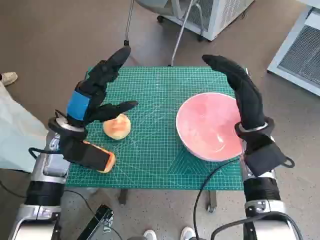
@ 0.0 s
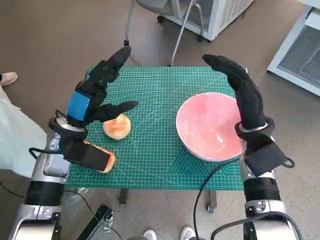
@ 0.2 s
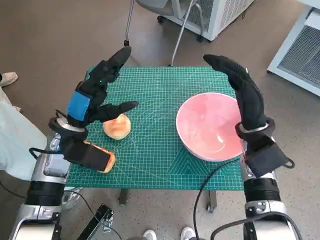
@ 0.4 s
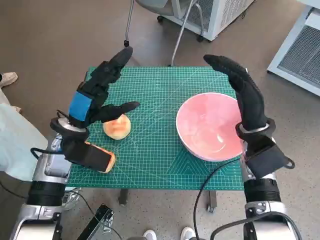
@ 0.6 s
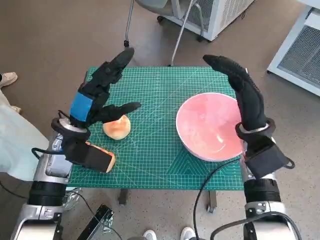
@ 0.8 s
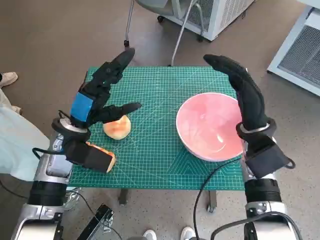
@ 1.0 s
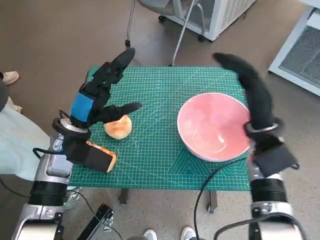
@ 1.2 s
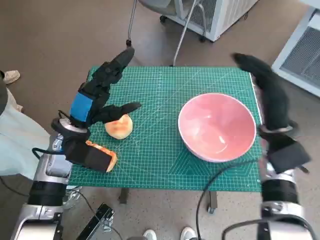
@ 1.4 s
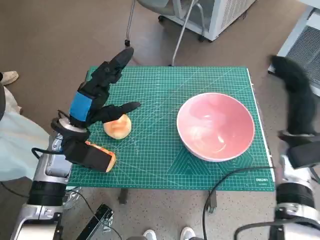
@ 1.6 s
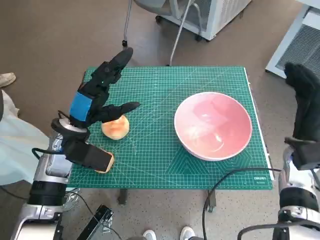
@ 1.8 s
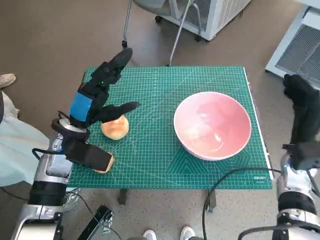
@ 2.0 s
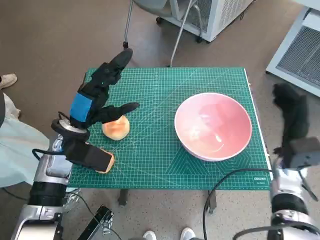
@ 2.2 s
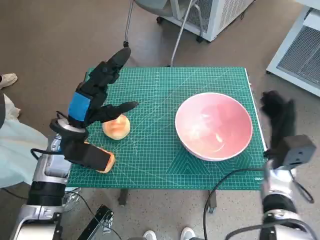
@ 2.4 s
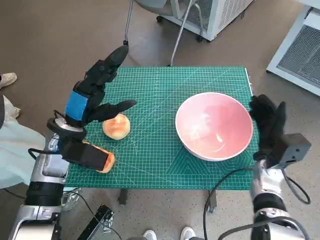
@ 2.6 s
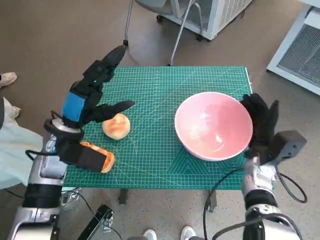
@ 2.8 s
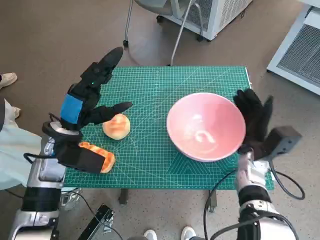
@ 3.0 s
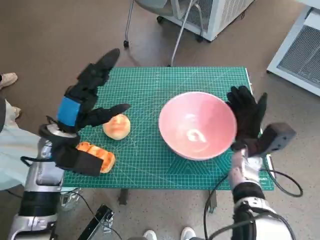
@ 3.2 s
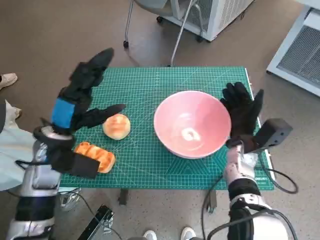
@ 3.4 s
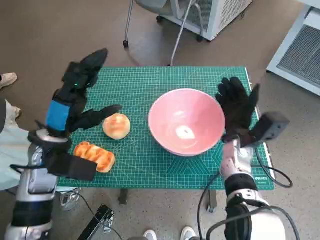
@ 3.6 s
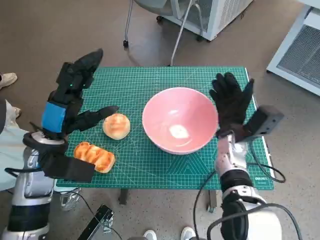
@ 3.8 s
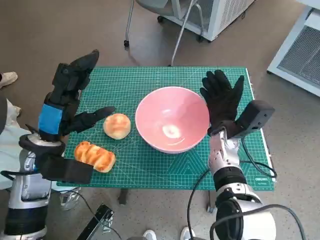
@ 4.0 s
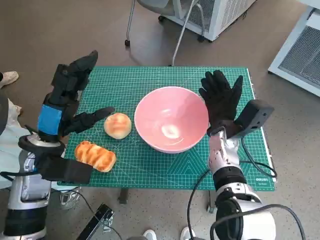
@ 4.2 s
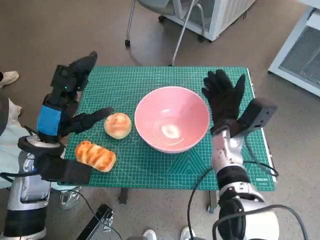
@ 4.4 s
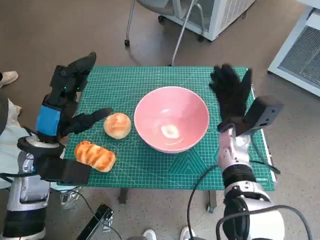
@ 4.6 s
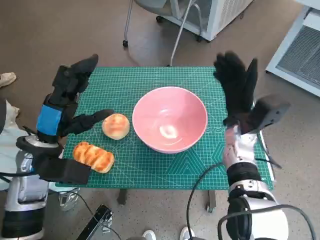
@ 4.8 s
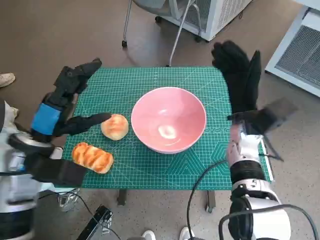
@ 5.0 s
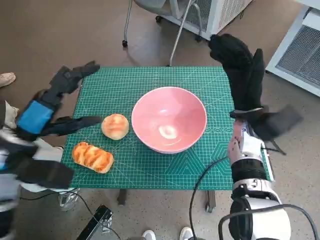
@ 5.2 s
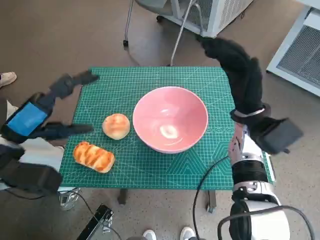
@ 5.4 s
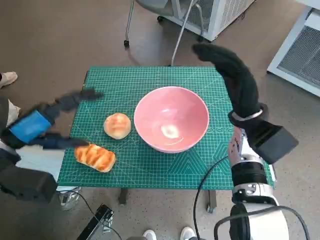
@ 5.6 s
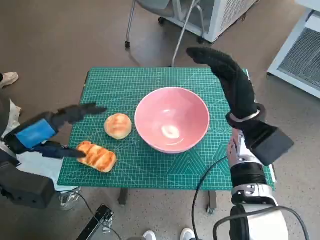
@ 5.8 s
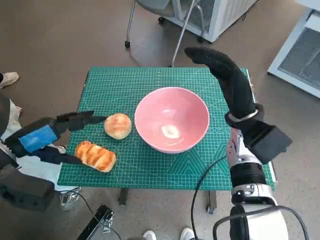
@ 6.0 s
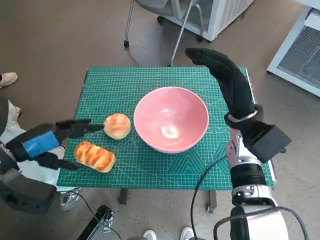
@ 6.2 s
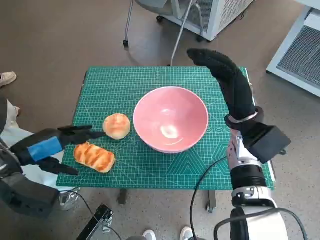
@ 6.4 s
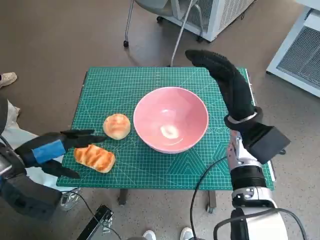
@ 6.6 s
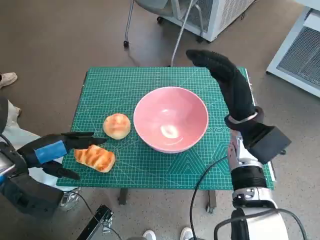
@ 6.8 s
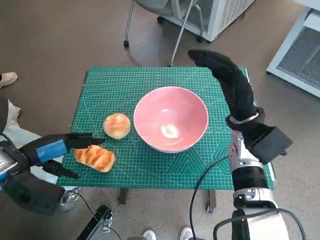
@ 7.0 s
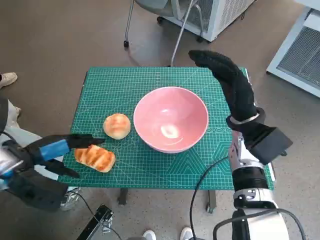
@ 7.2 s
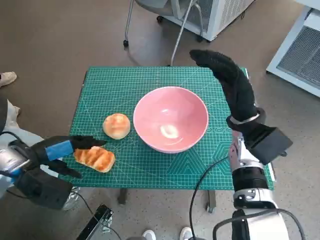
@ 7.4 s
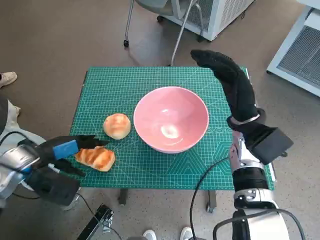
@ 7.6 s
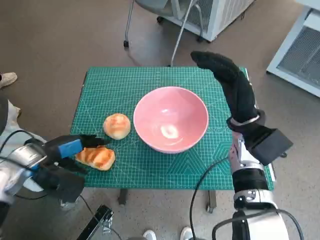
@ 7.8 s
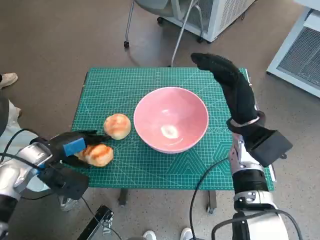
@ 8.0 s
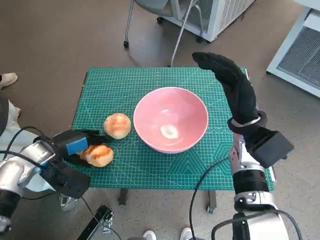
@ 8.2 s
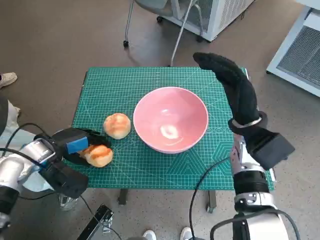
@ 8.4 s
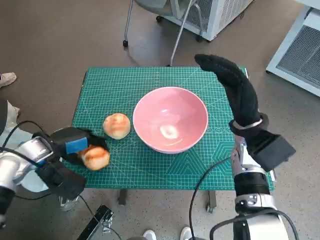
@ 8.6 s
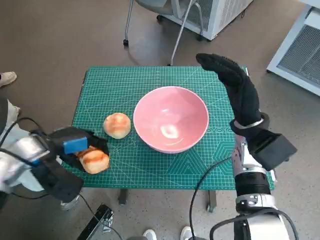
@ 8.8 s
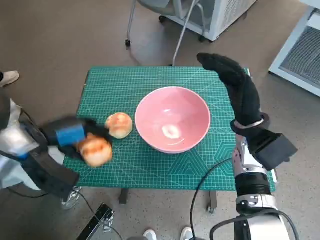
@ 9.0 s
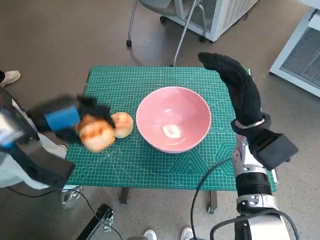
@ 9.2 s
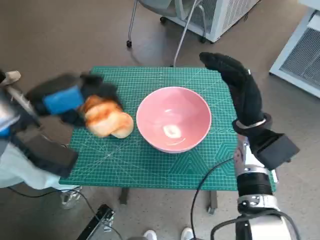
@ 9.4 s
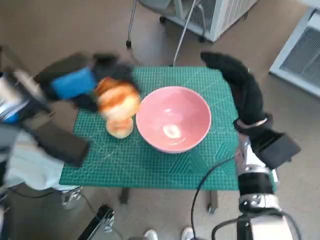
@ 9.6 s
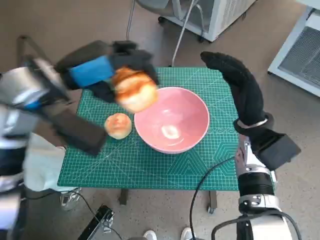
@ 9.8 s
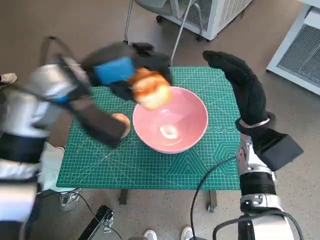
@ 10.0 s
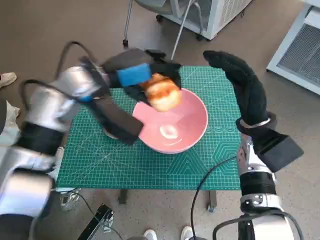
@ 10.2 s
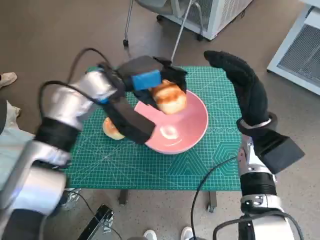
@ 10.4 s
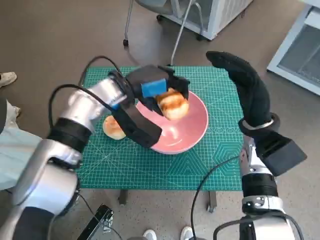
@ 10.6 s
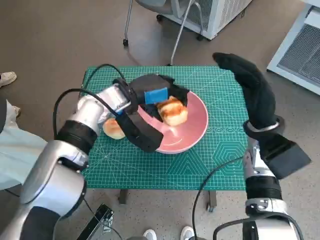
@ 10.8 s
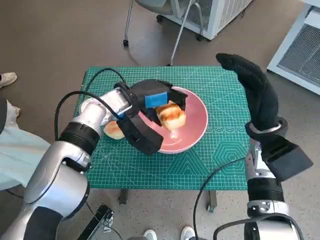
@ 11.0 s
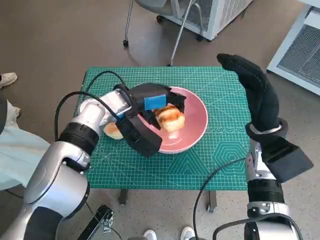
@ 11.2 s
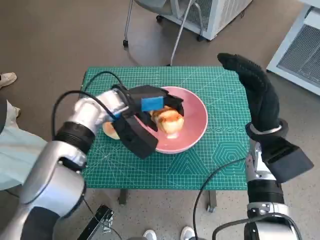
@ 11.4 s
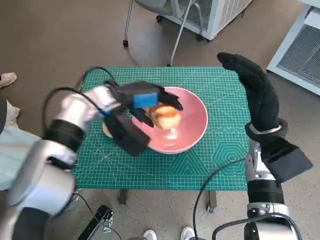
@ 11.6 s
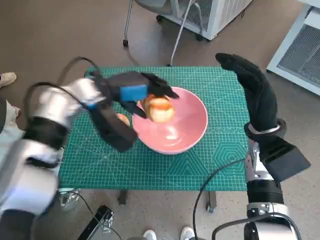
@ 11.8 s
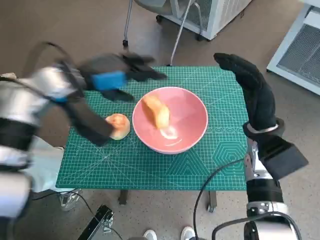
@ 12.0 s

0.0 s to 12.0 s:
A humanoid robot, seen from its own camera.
Task of the whole recording: Push the bowl to the center of the table and put the bread into the bowl.
Step, 0.0 to 4.8 s: Move the pink bowl to the center of table with right hand.
Step, 5.0 to 8.4 s: Grasp the long bread with left hand.
1.6 to 3.0 s: The right hand travels downward by approximately 10 cm.
3.0 to 4.4 s: The right hand is displaced to the left by roughly 5 cm.
4.4 to 6.0 s: The left hand is displaced to the left by about 5 cm. The right hand is displaced upward by some 5 cm.
6.0 to 7.6 s: The left hand goes roughly 5 cm downward.
7.6 to 9.0 s: The hands make only small movements.
9.0 to 10.4 s: The left hand goes approximately 15 cm to the right, forward and upward.

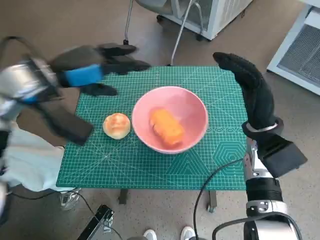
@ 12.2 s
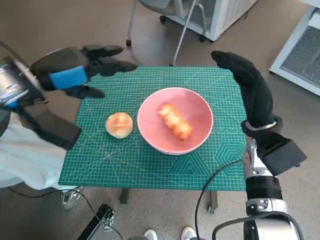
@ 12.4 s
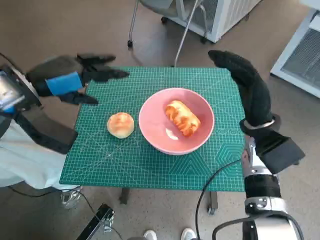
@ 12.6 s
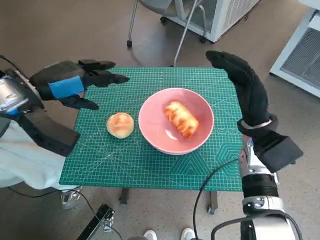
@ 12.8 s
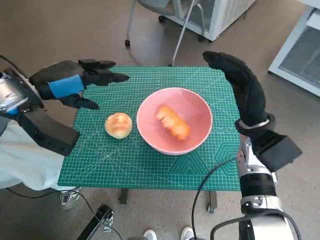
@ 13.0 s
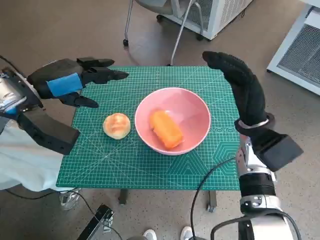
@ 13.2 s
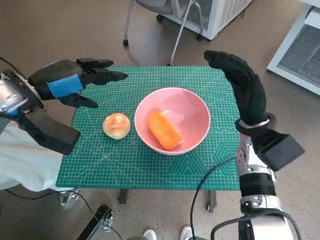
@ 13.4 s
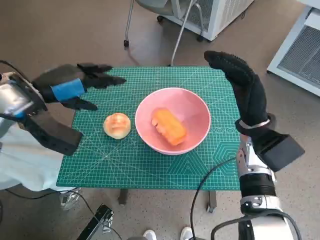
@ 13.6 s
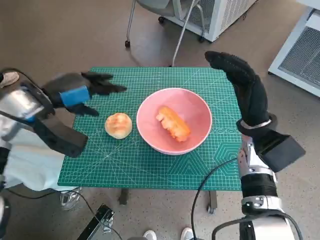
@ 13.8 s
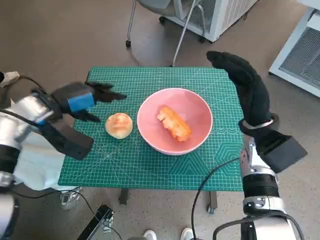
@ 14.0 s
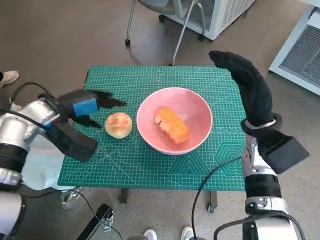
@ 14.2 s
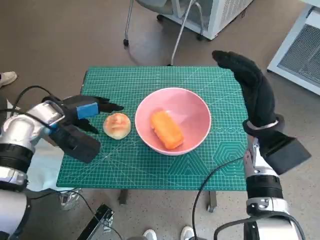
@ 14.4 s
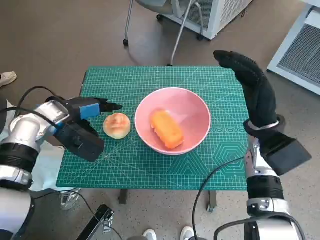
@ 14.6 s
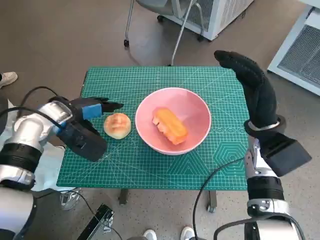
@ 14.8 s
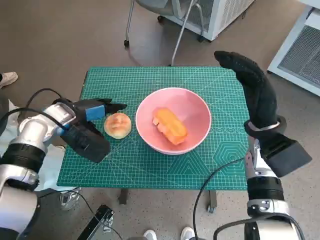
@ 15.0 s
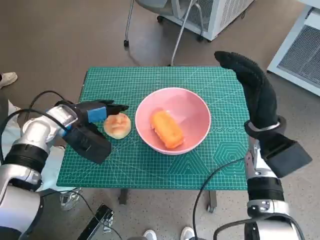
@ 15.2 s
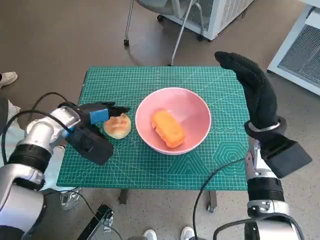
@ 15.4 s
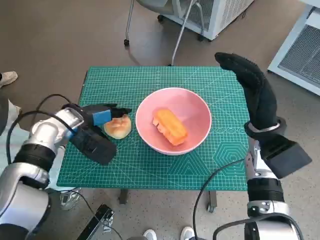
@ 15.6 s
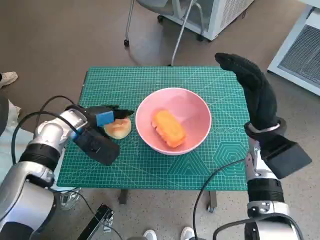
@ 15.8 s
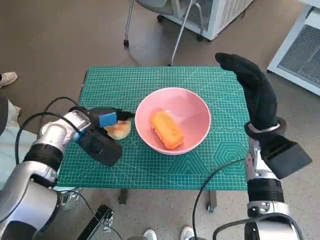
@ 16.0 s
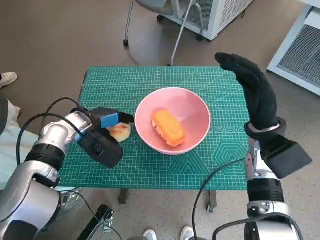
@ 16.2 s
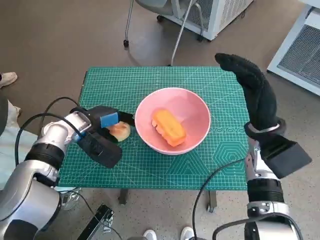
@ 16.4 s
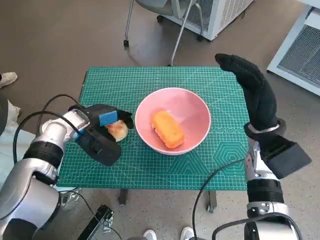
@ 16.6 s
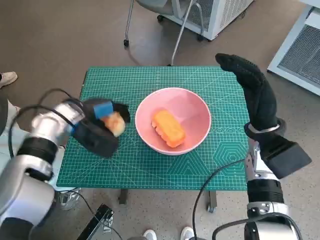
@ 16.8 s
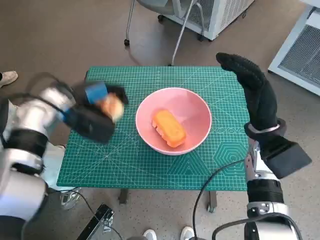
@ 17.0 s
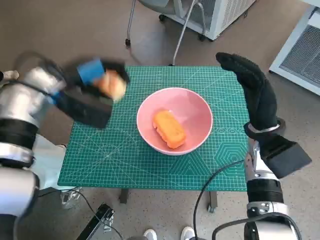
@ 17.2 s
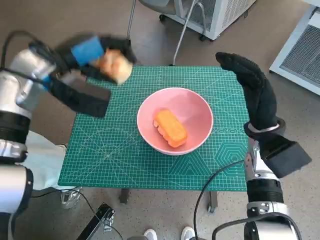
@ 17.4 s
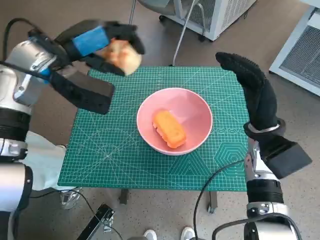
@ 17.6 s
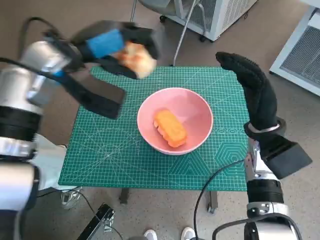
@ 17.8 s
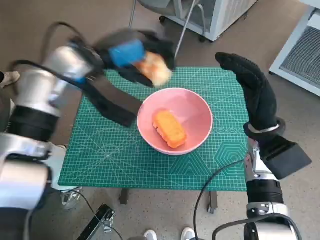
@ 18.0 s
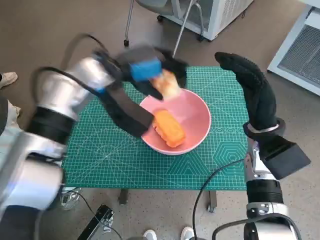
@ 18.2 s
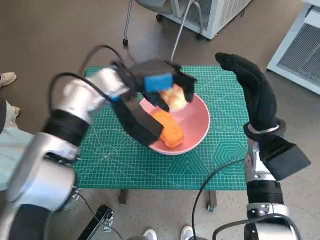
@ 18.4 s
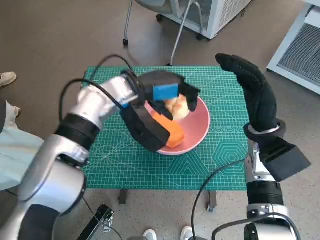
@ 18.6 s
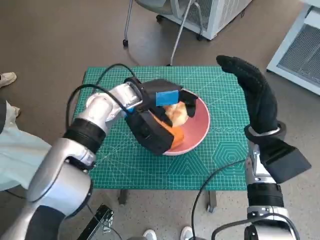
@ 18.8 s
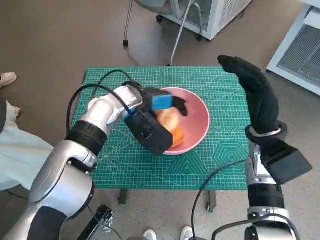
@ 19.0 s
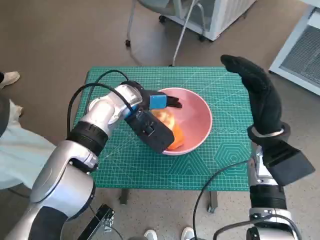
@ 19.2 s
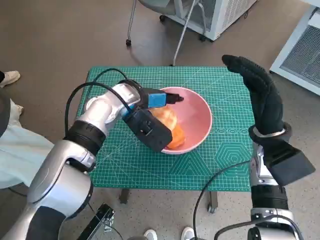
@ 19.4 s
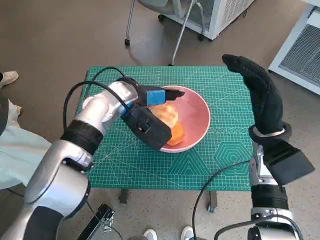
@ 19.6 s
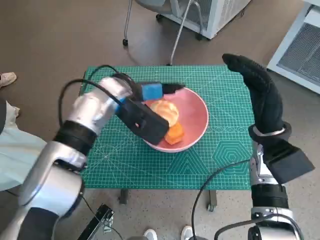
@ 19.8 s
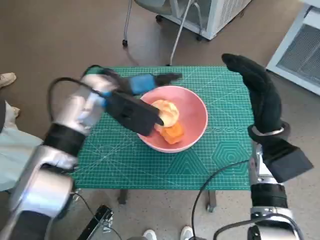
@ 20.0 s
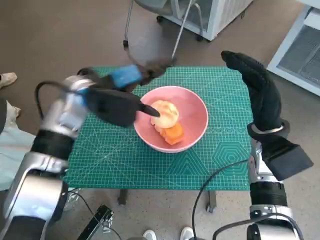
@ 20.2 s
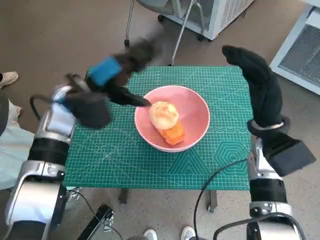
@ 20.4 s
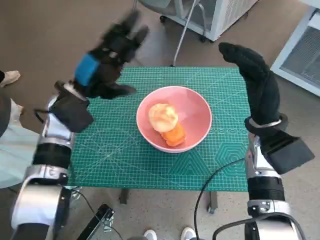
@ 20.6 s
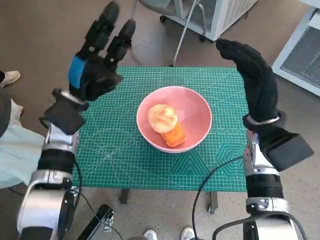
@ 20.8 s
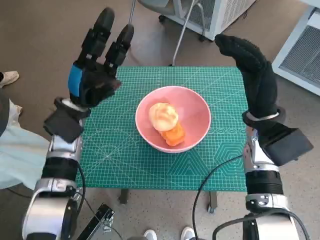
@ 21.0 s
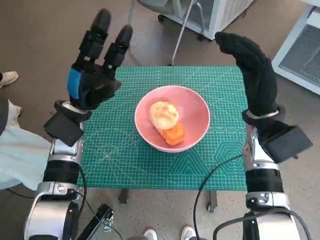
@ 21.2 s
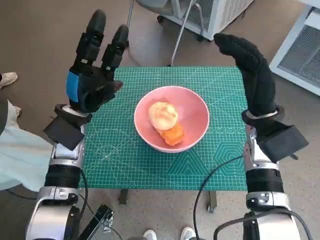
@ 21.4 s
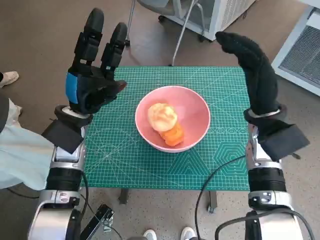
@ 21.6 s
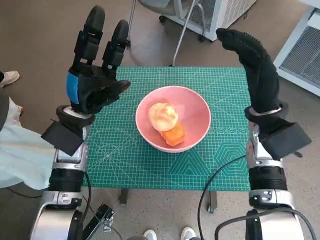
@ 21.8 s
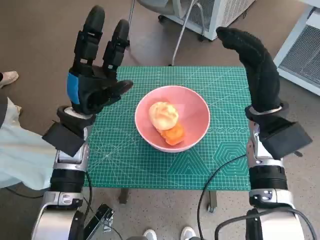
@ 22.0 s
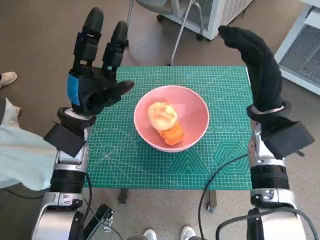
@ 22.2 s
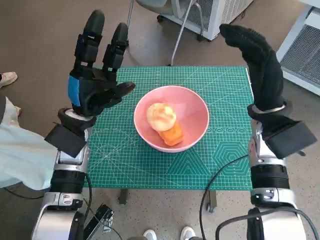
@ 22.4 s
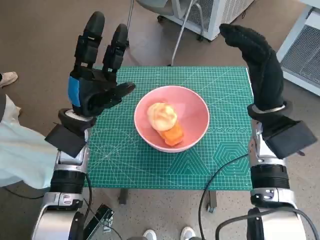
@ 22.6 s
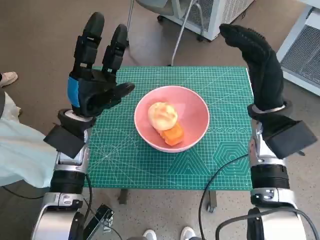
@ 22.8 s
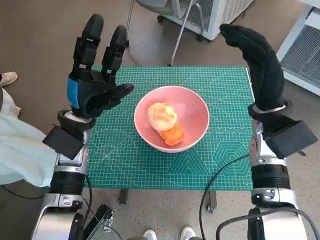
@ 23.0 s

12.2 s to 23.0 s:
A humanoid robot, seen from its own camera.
Task of the whole recording: Push the bowl to the center of the table and put the bread into the bowl.
Step, 12.6 to 16.0 s: Grasp the round bread with left hand.
Step, 16.2 to 19.8 s: Place the round bread in pink bowl with left hand.
12.2 to 13.8 s: The left hand moves roughly 5 cm.
13.8 to 15.2 s: The left hand travels downward by approximately 5 cm.
15.2 to 16.8 s: The hands stay close to where they were, moving slightly.
16.8 to 18.4 s: The left hand goes roughly 15 cm to the right and upward.
20.0 to 21.4 s: The left hand is displaced to the left and downward by about 10 cm.
21.4 to 23.0 s: There are only small adjustments of the hands.
